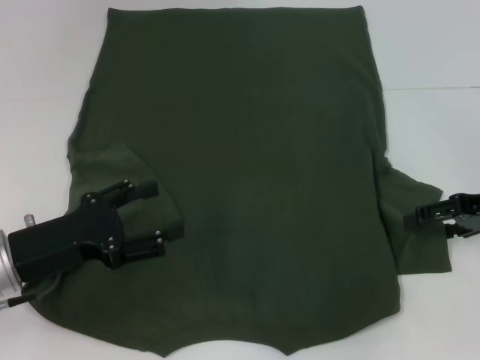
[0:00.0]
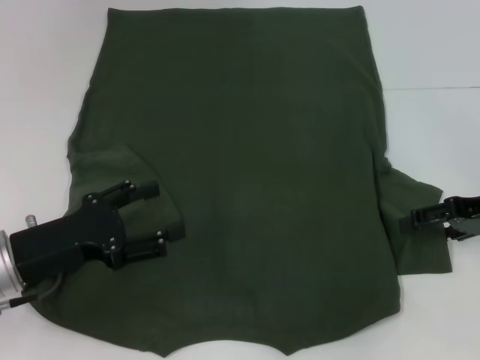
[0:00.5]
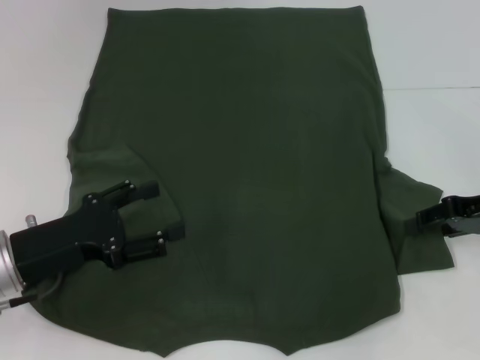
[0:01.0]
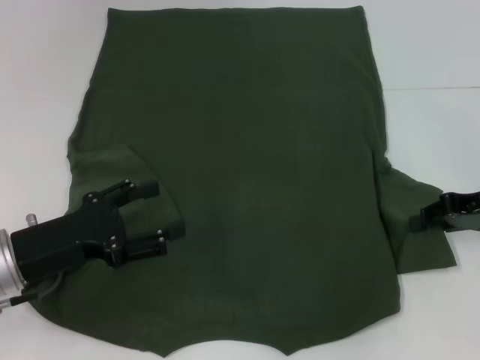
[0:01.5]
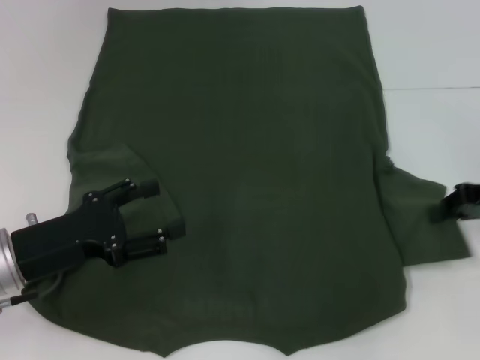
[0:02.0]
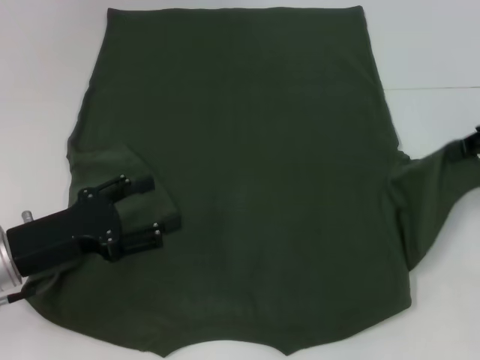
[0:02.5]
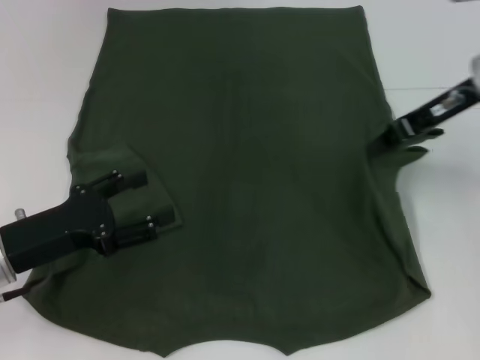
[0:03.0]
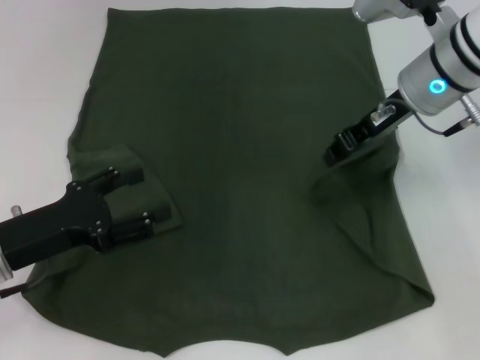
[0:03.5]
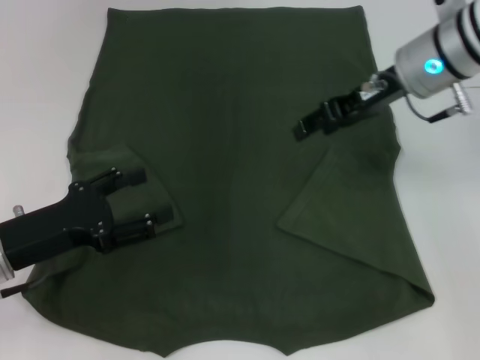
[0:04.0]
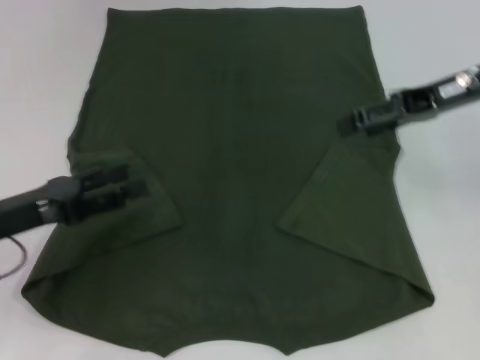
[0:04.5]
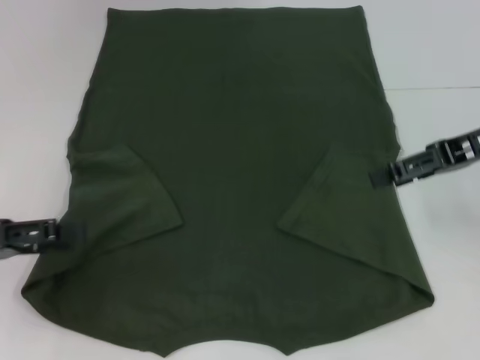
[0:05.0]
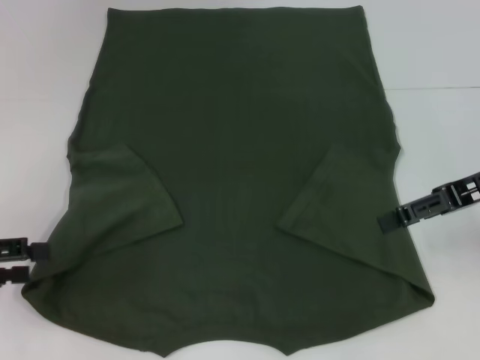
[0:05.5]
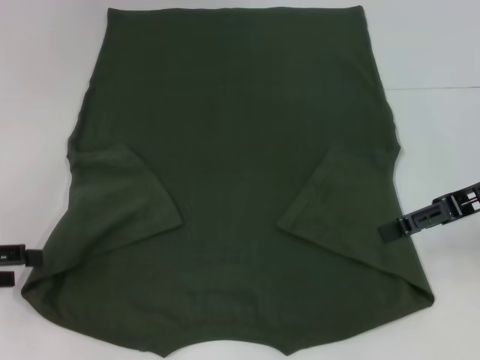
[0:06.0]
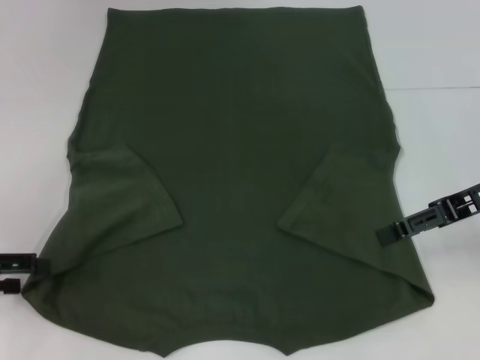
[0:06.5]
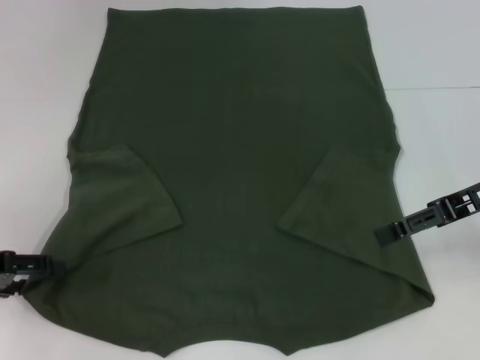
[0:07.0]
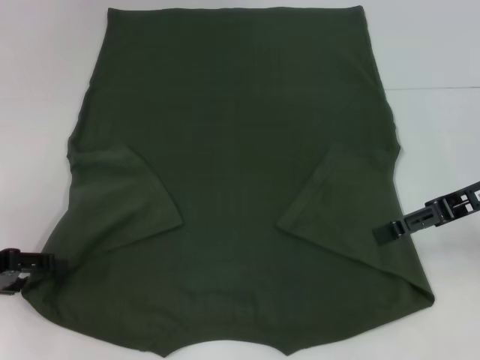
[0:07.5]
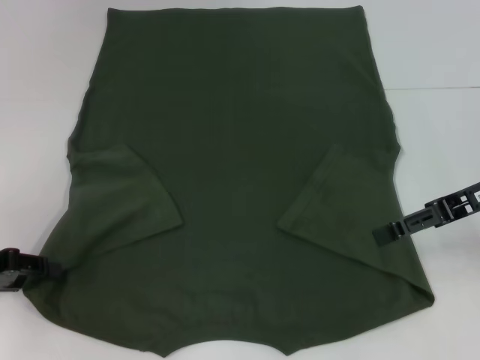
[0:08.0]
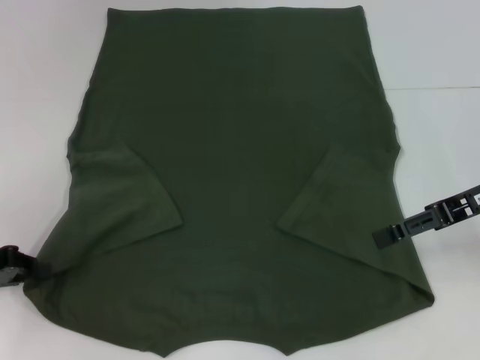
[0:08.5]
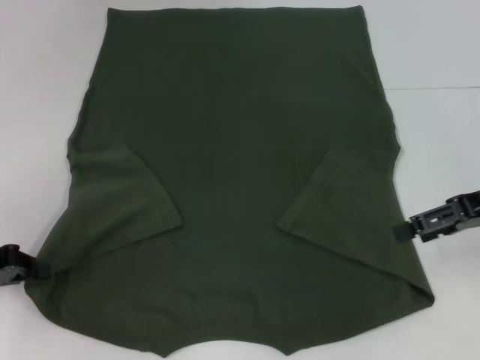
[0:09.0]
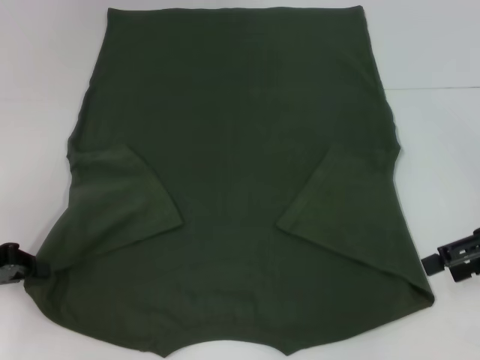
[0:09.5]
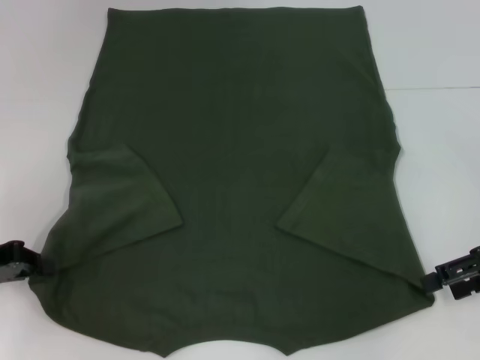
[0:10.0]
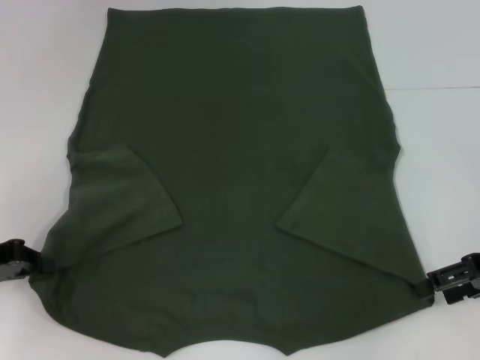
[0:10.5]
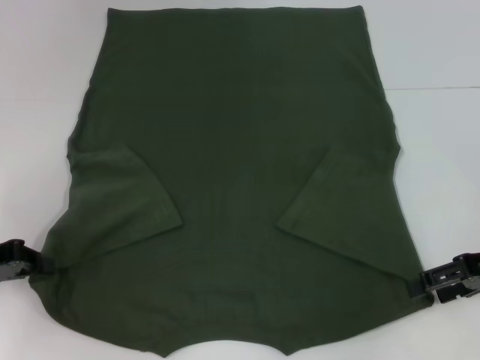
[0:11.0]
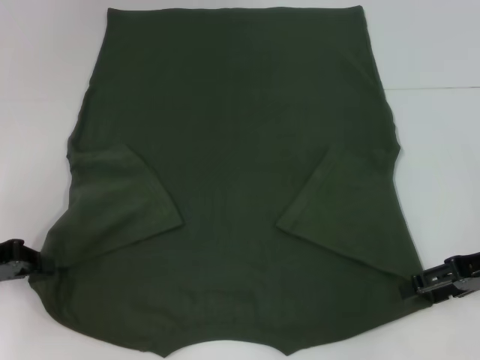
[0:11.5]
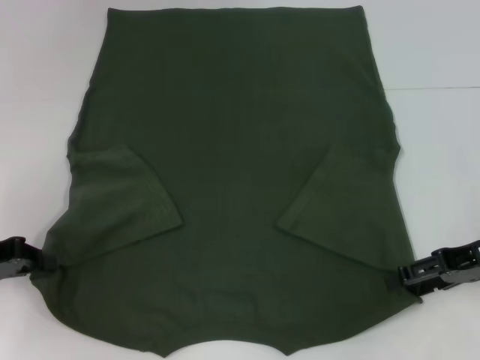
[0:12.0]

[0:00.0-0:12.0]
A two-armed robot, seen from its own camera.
Step, 0:00.0 to 0:03.5: Fold the bottom right sleeve with your right hand.
Step, 0:04.0 to 0:09.0: Grab the bottom left corner with your left hand.
0:00.0 to 0:02.0: The right gripper closes its fingers.
0:02.0 to 0:04.0: The right gripper heads to the left, forward and upward, covering some 20 cm, and opens up.
0:04.0 to 0:06.0: The left gripper is displaced to the left by some 10 cm. Meanwhile the right gripper heads to the right and backward, covering some 15 cm, and opens its fingers.
0:06.0 to 0:08.0: The left gripper closes its fingers.
0:08.0 to 0:10.0: The right gripper ends up approximately 5 cm from where it was; the left gripper closes.
0:10.0 to 0:12.0: The grippers stay close to where they were, moving slightly.

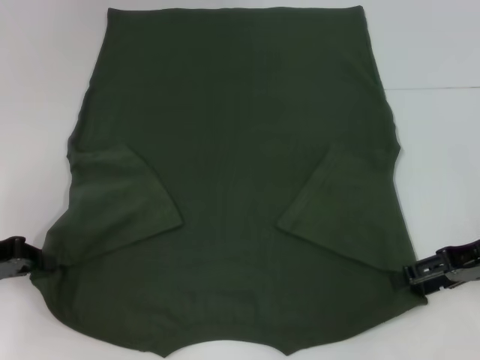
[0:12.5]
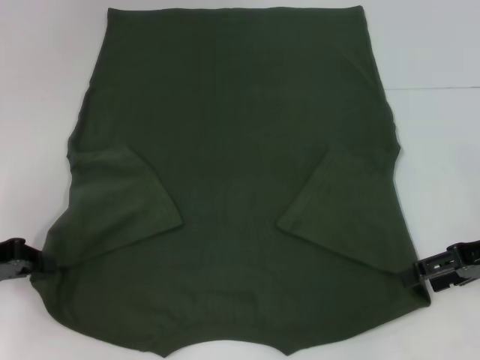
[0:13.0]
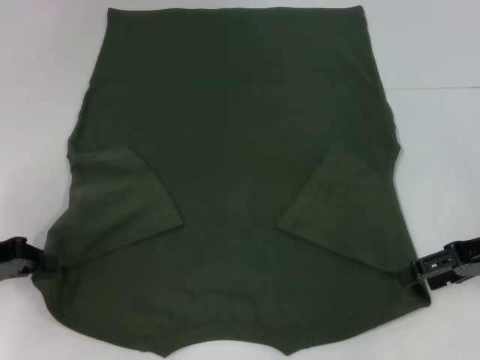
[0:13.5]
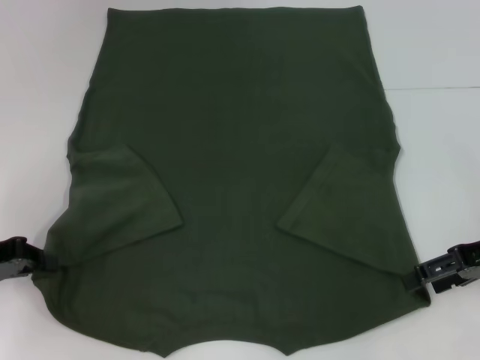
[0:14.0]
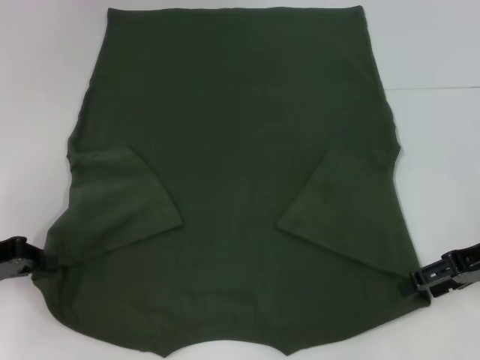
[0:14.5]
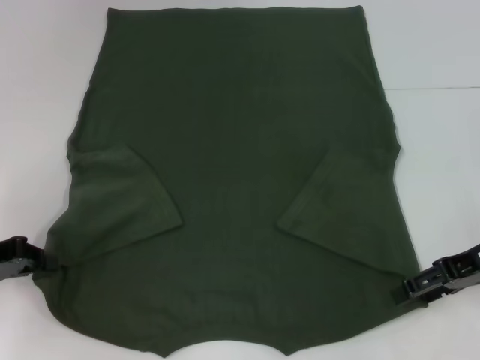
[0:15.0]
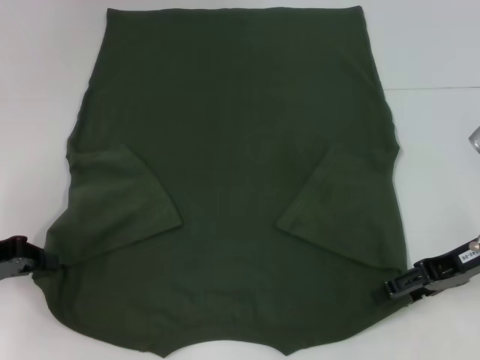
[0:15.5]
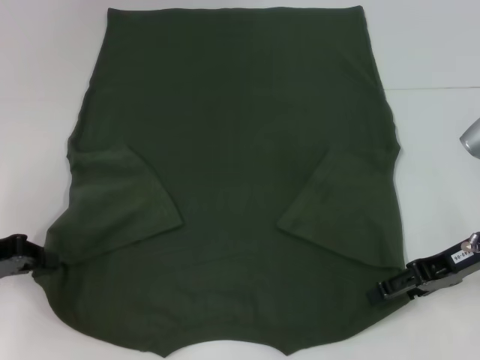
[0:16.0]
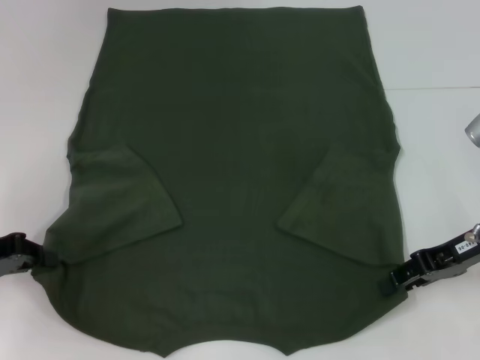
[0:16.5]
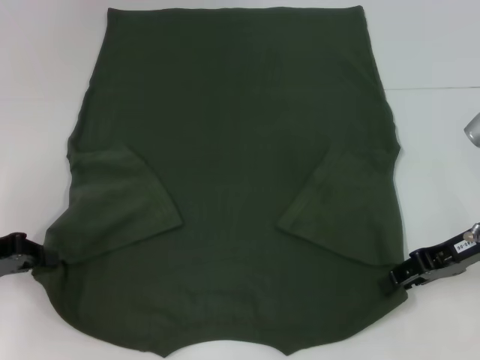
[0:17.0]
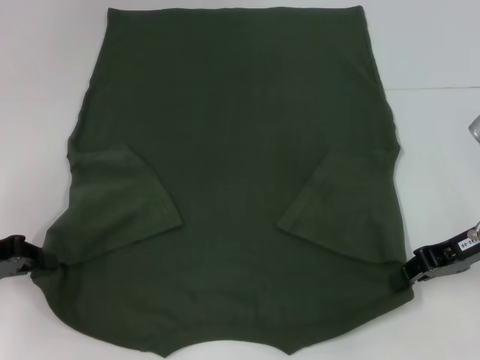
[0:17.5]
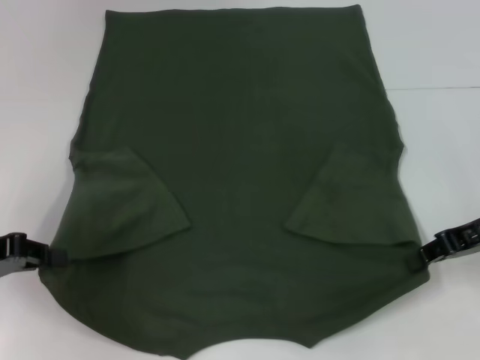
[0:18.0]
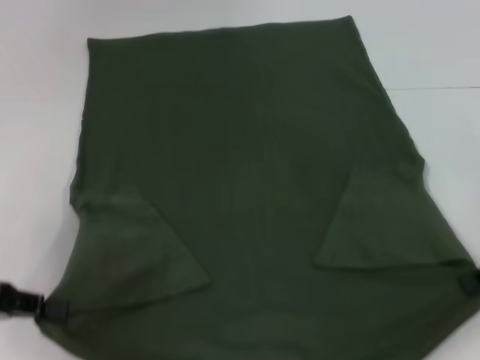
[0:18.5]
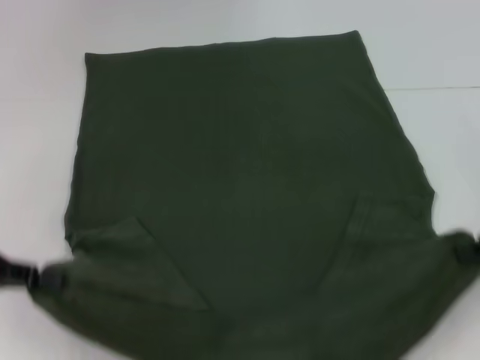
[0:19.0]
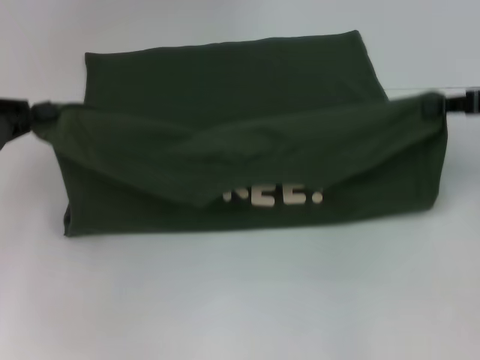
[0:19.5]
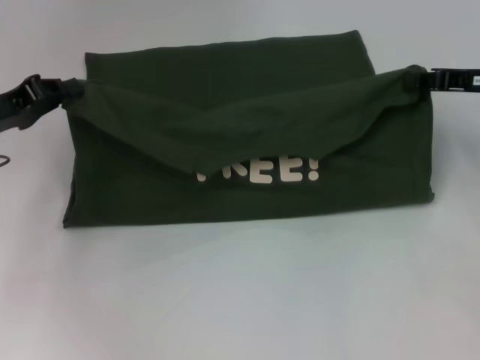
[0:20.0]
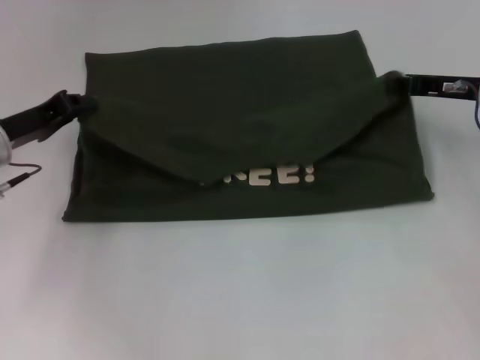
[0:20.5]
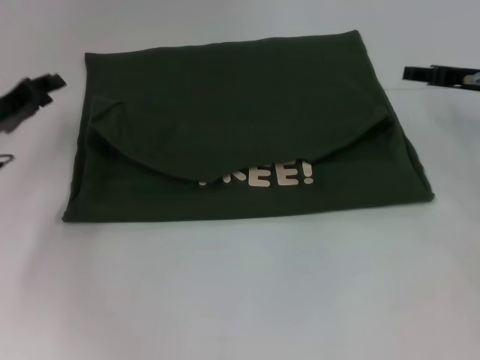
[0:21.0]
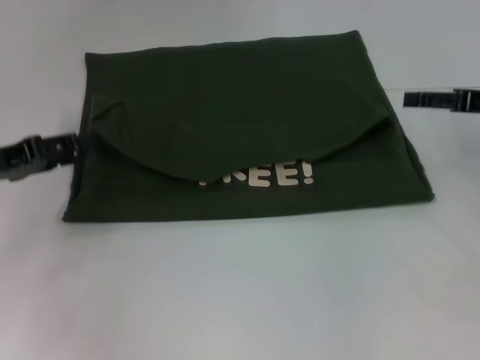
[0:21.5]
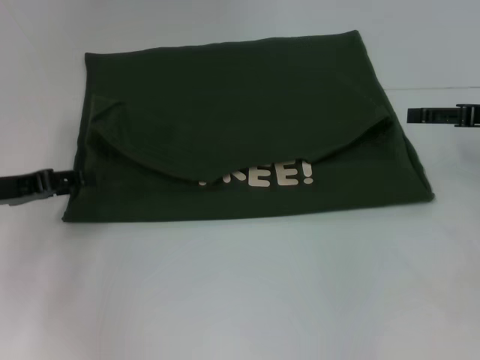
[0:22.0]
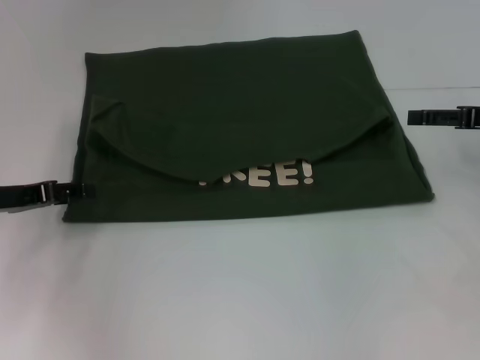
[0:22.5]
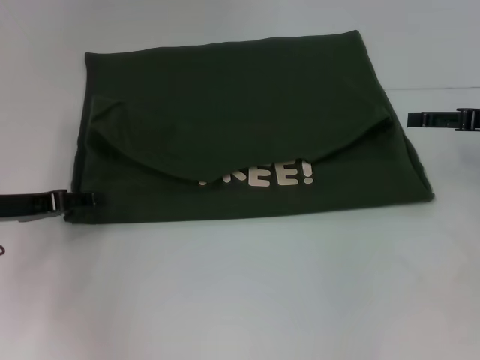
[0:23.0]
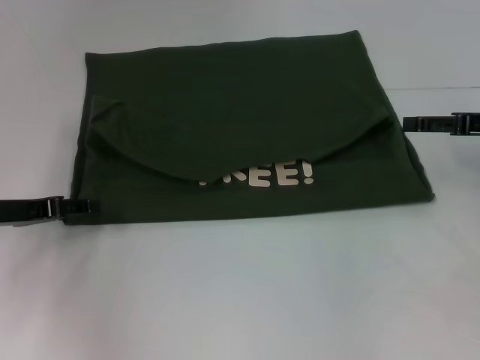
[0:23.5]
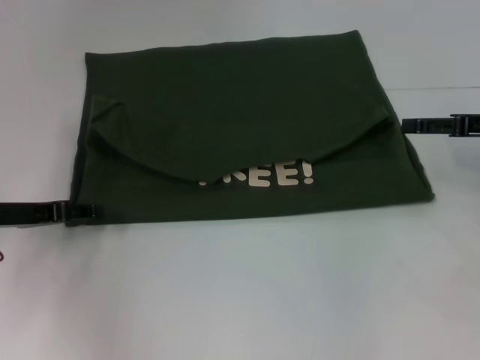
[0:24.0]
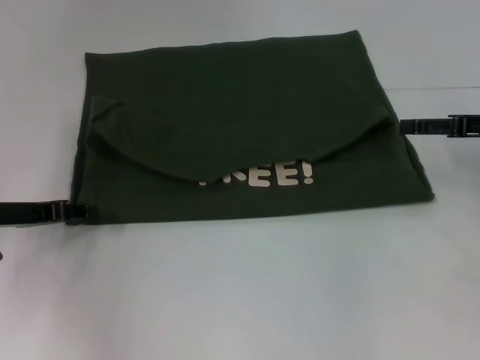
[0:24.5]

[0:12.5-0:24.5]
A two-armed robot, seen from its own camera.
Step, 0:12.5 to 0:17.5: Grab the bottom right corner with your right hand.
Step, 0:18.0 to 0:20.5: Fold the clothes with your left hand.
Step, 0:18.0 to 0:20.5: Fold the clothes with your right hand.
0:12.5 to 0:14.5: Both grippers stay put.
0:14.5 to 0:16.5: The right gripper closes up.
0:16.5 to 0:18.5: The left gripper shifts by approximately 5 cm; the right gripper moves to the right, about 5 cm, and closes up.
0:18.5 to 0:20.5: The right gripper shifts about 15 cm forward and to the left, while the left gripper goes roughly 15 cm forward and to the right.
0:20.5 to 0:22.5: The right gripper travels to the right by approximately 5 cm, and opens up, while the left gripper changes place by roughly 5 cm, and opens its fingers.
0:22.5 to 0:24.5: The grippers stay close to where they were, moving slightly.

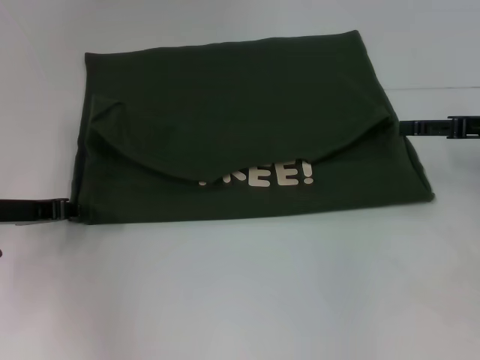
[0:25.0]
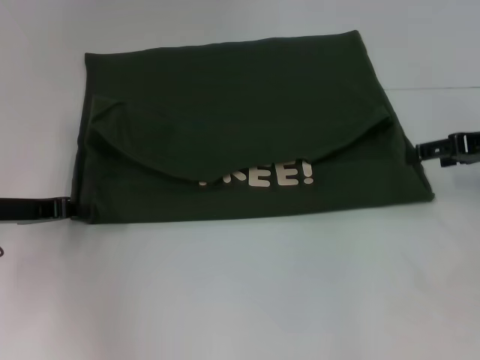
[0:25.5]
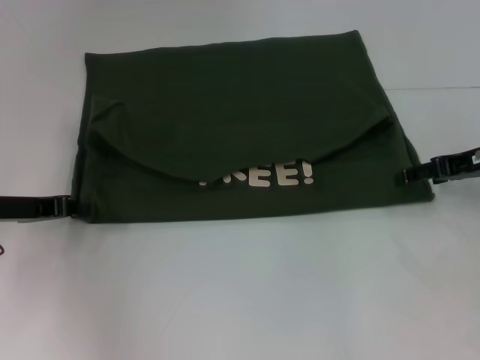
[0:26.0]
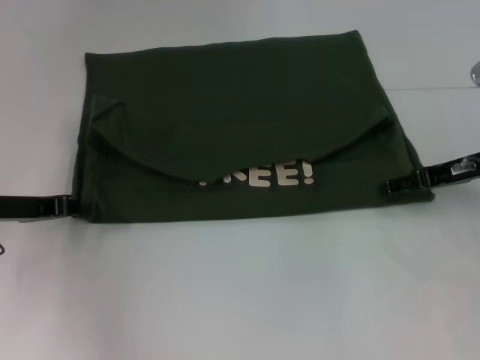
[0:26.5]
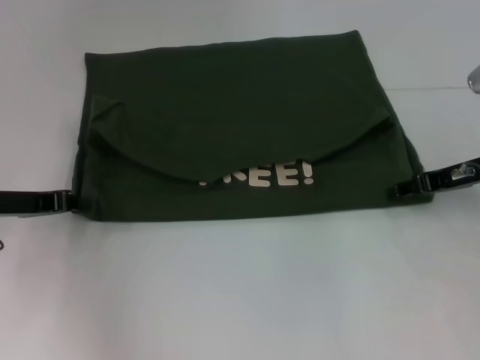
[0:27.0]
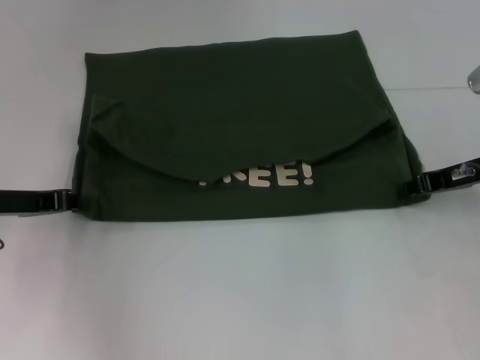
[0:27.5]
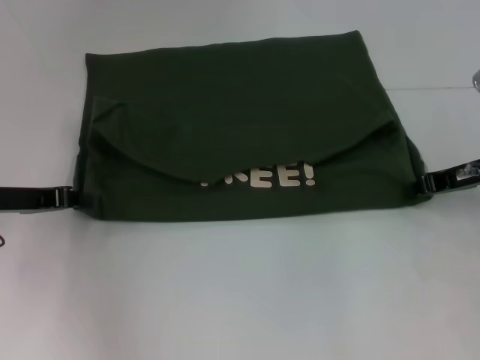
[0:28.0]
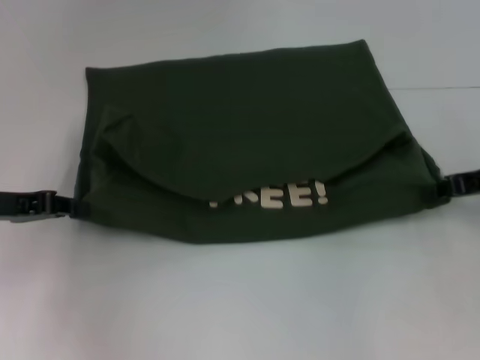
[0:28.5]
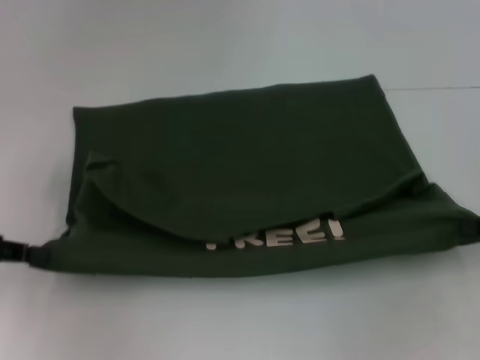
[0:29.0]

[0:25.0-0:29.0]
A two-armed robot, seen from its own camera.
0:25.0 to 0:27.0: The left gripper closes its fingers, while the right gripper moves about 5 cm.
0:27.0 to 0:29.0: The left gripper shifts about 10 cm backward, to the left and upward. The right gripper travels backward and to the right by some 10 cm, and closes its fingers.
